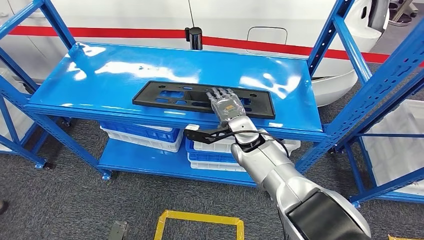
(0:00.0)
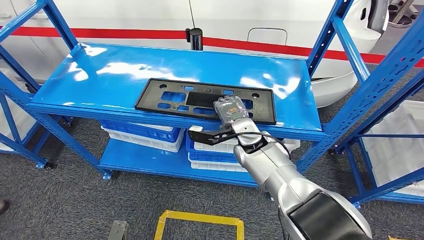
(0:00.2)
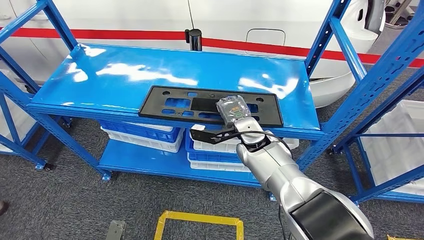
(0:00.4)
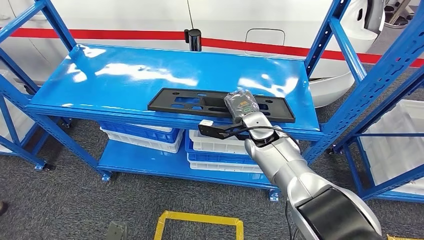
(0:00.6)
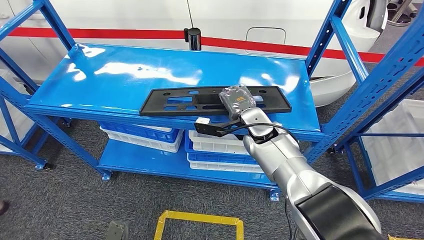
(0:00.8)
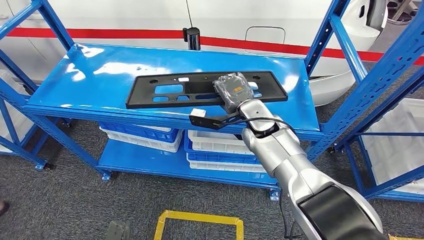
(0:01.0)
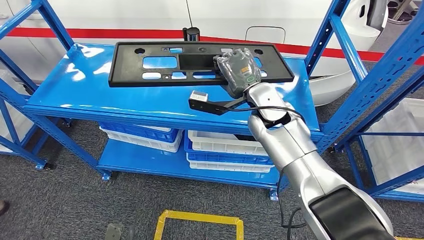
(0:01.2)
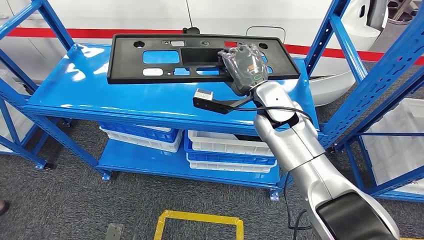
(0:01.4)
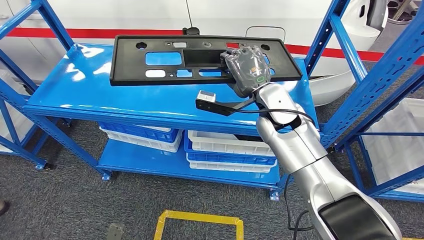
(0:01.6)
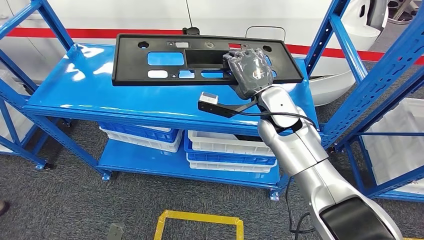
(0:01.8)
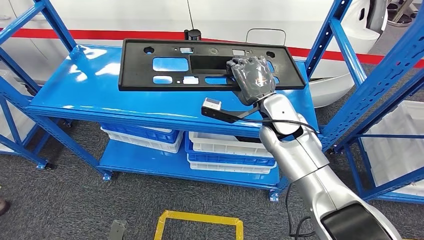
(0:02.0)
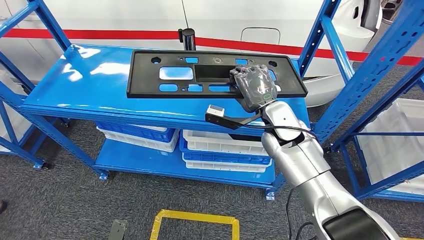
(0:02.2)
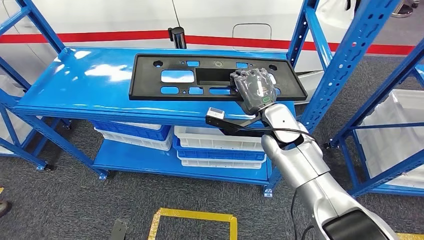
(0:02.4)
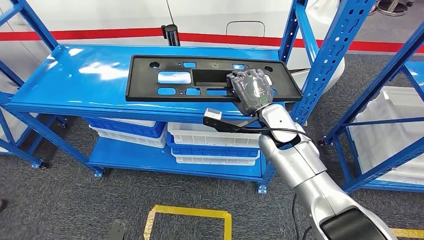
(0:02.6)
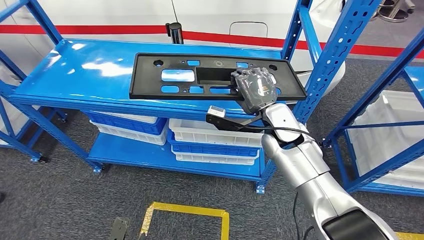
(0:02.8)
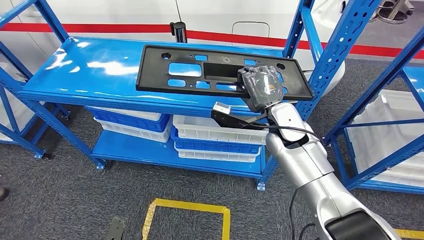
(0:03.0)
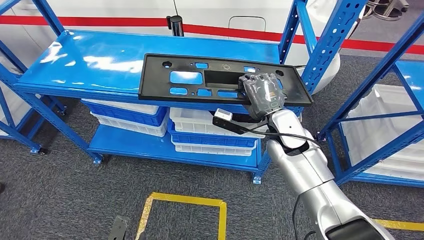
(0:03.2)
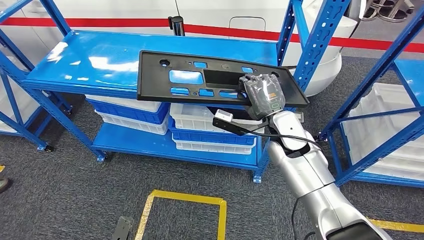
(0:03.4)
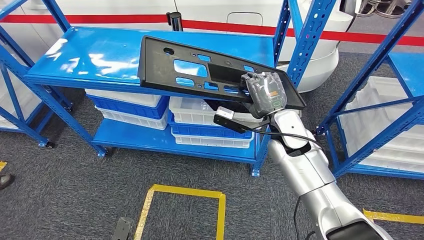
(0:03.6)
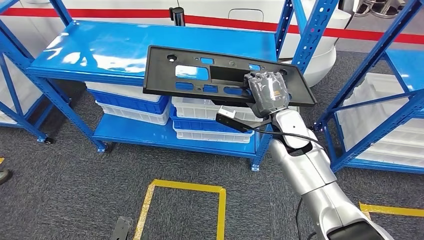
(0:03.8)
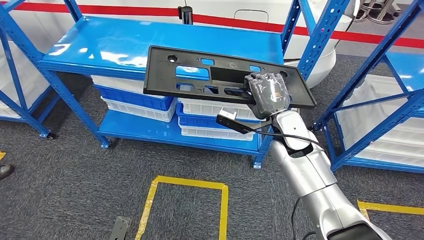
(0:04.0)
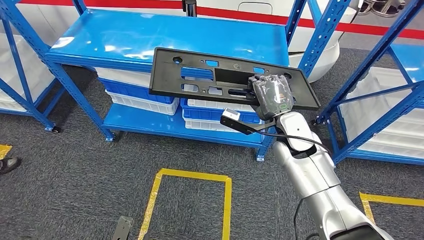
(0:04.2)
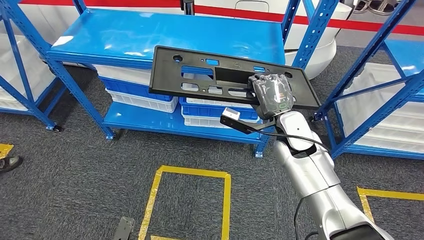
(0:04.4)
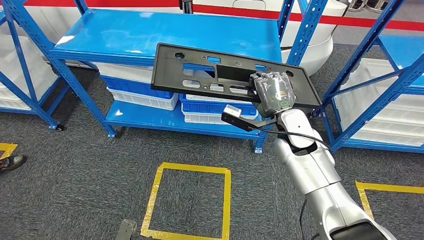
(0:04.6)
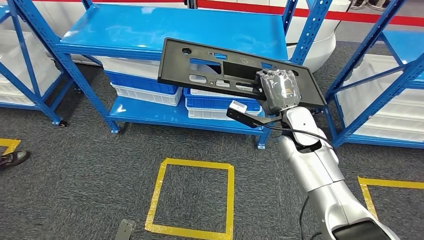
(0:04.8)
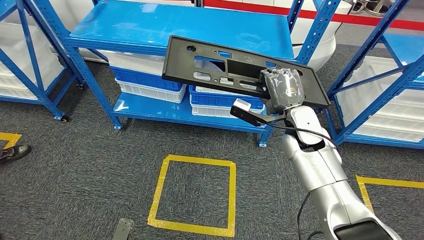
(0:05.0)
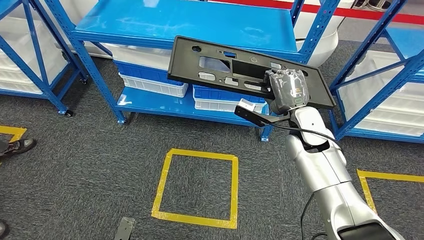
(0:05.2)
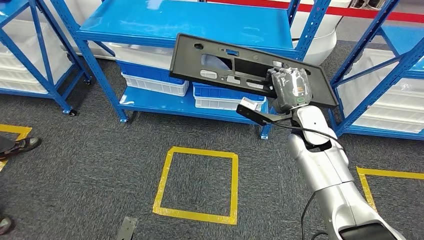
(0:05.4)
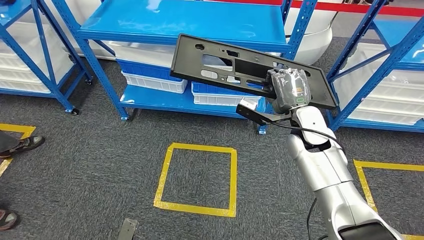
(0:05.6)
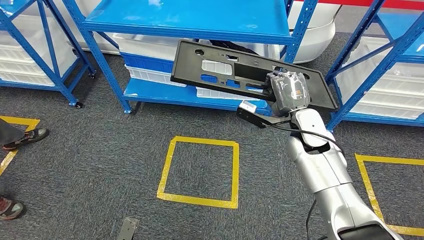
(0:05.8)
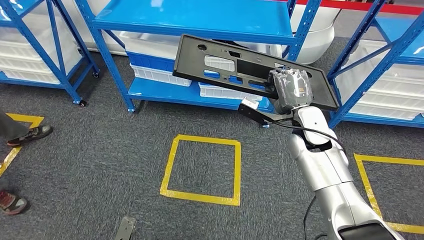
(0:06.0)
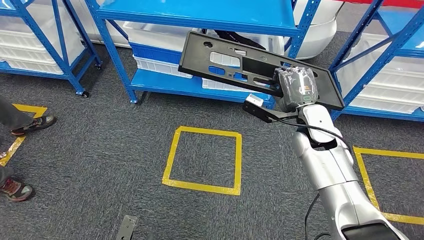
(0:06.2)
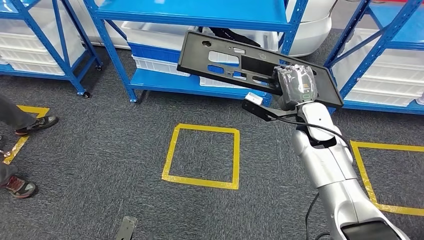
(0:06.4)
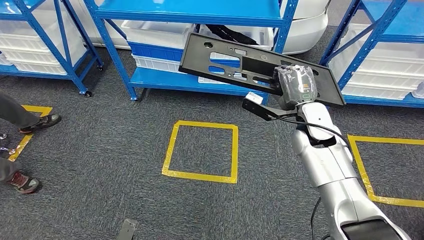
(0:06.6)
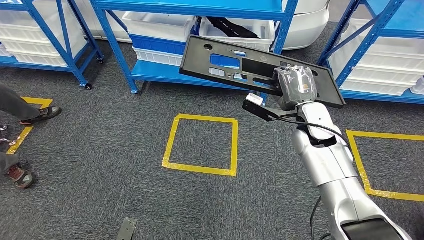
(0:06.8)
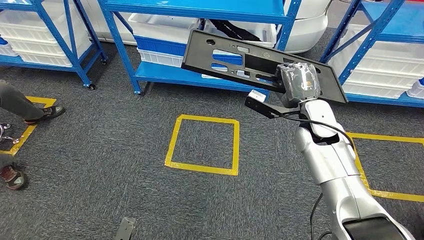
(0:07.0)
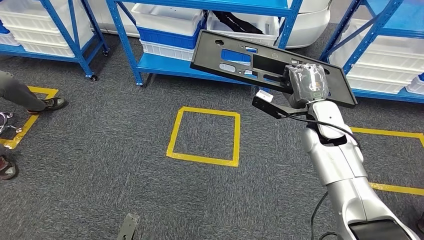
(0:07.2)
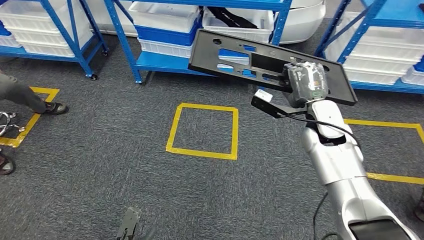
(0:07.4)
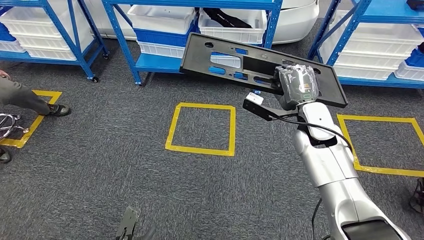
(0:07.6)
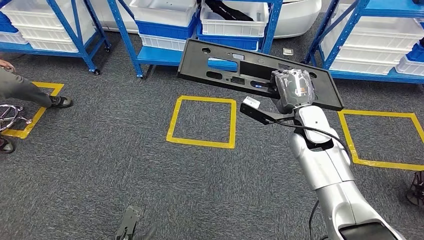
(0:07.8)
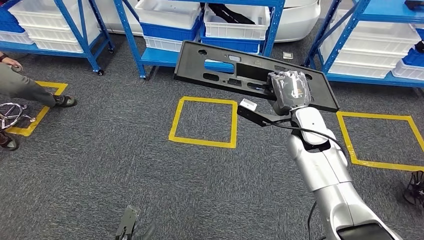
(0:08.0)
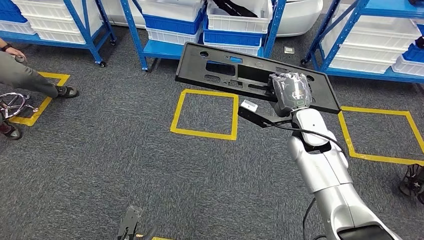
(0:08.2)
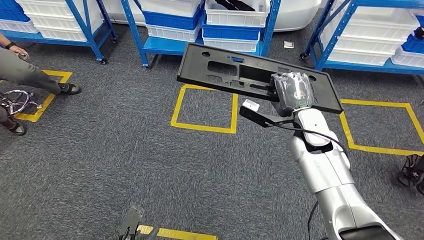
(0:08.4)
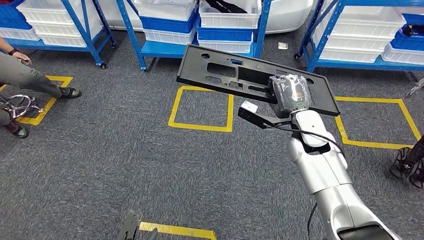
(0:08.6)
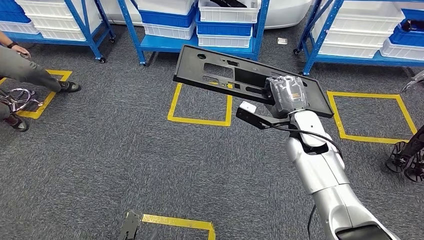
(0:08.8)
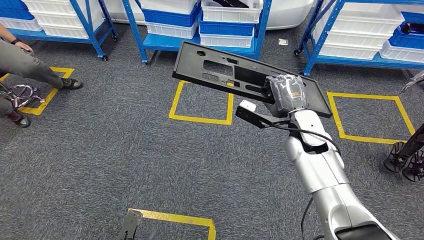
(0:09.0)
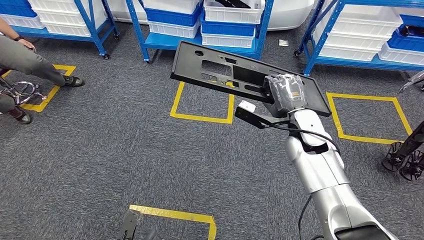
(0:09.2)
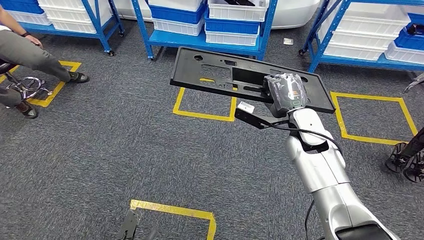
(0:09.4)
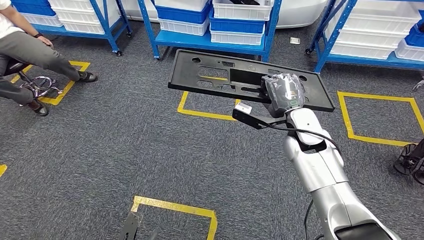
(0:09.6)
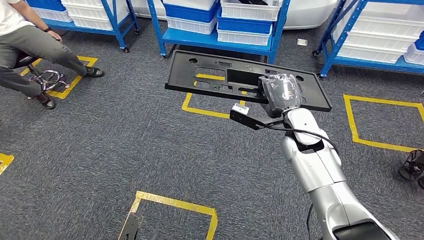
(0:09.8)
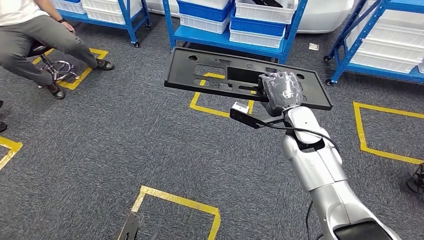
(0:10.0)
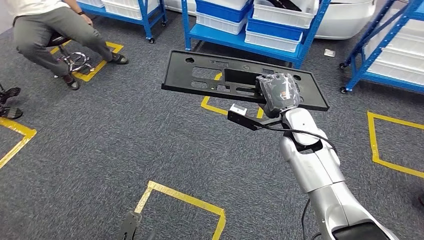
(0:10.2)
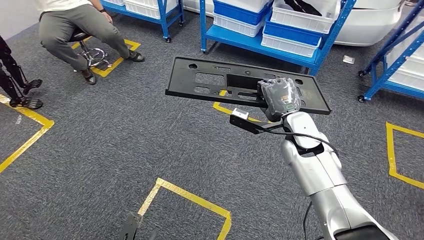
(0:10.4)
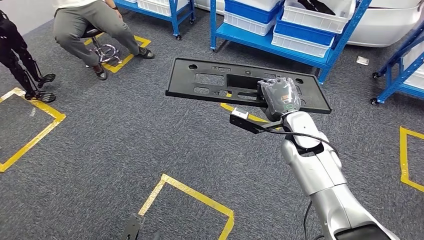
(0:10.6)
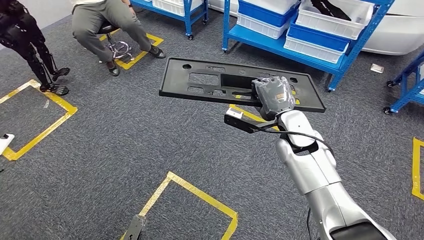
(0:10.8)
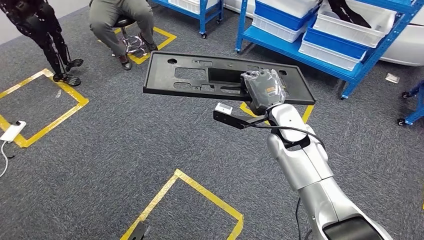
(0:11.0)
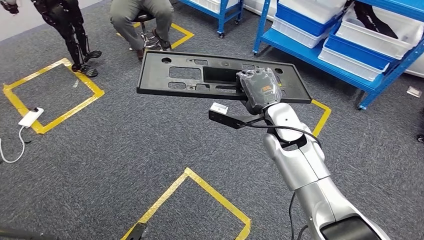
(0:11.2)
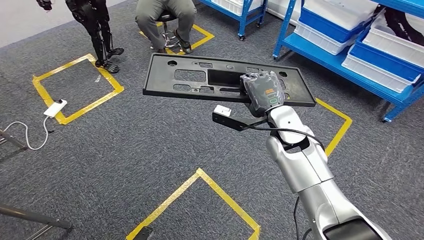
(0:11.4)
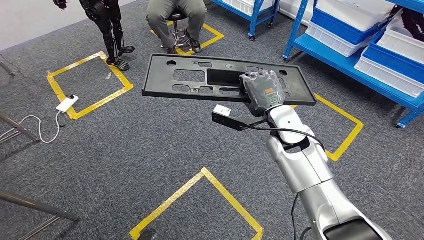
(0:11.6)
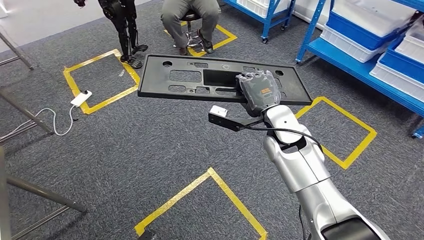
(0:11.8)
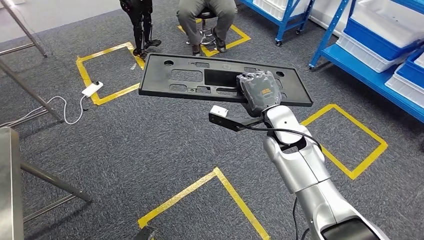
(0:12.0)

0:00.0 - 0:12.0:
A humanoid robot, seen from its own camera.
Step, 0:00.0 - 0:04.4: Pick up the large material from the shelf.

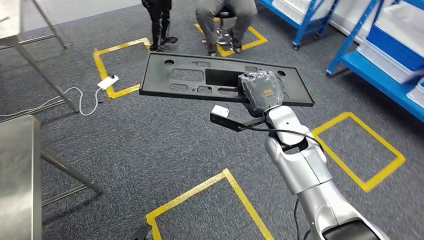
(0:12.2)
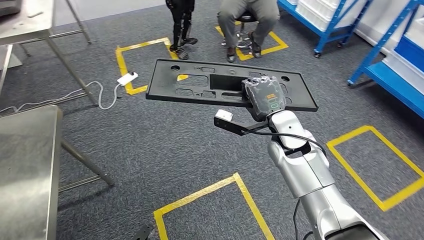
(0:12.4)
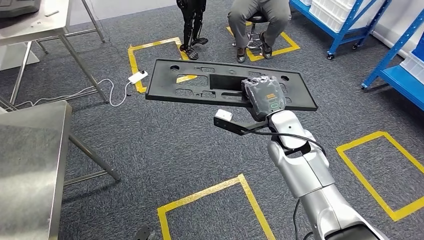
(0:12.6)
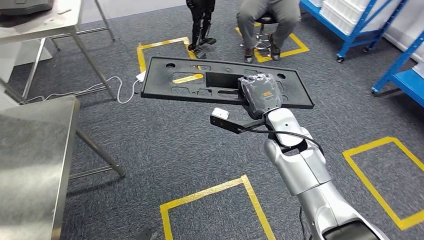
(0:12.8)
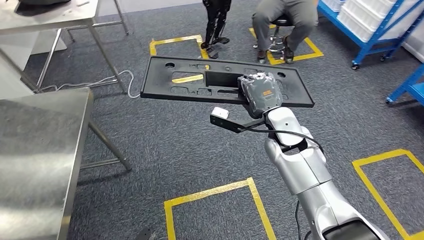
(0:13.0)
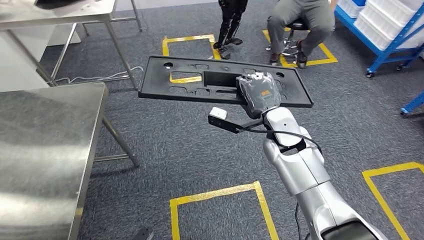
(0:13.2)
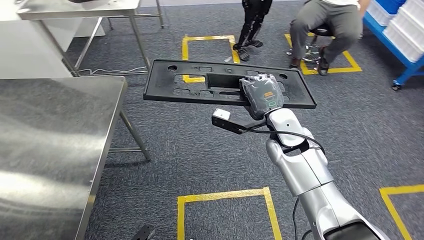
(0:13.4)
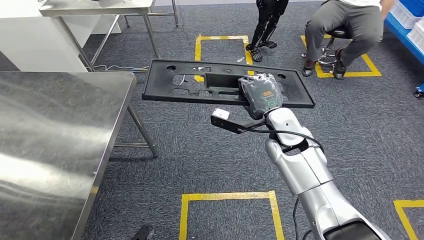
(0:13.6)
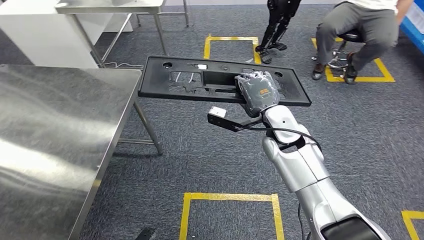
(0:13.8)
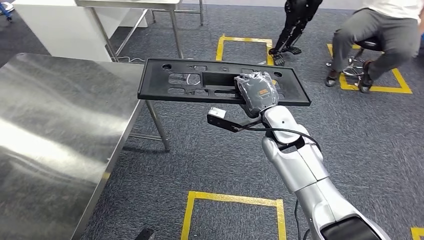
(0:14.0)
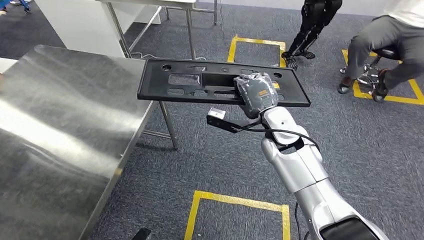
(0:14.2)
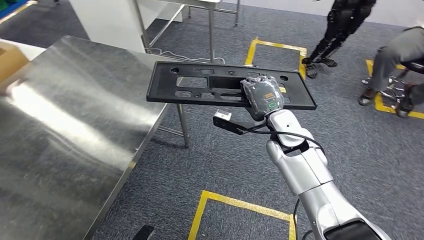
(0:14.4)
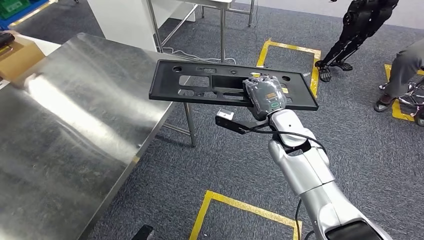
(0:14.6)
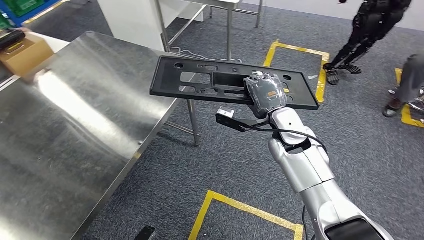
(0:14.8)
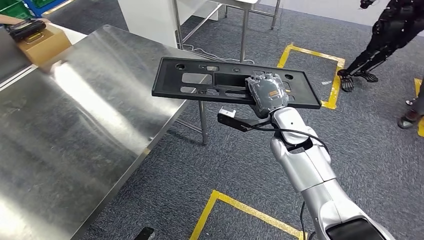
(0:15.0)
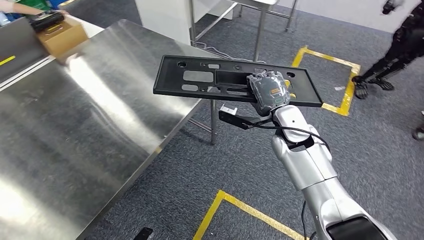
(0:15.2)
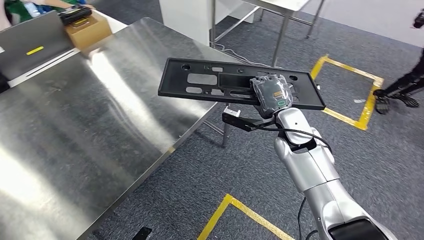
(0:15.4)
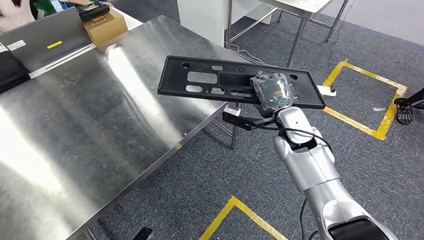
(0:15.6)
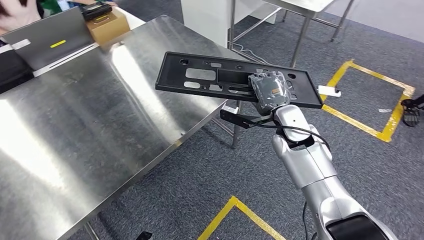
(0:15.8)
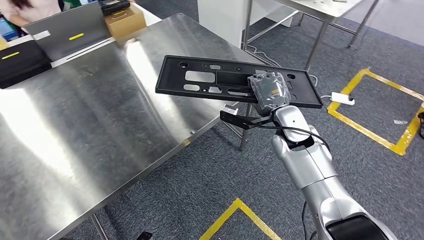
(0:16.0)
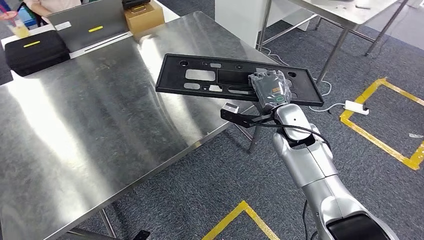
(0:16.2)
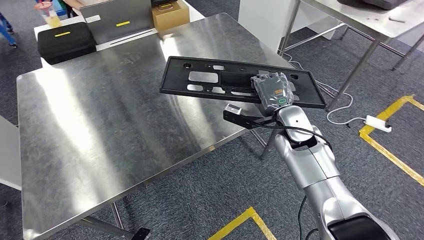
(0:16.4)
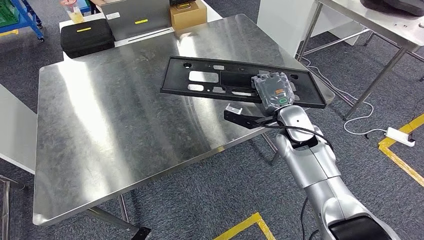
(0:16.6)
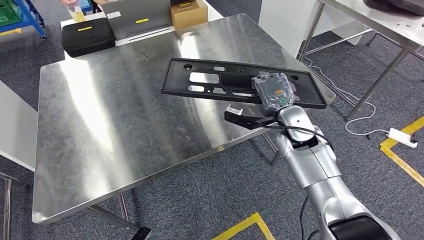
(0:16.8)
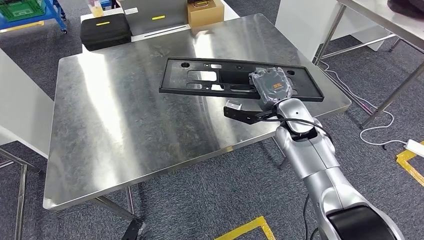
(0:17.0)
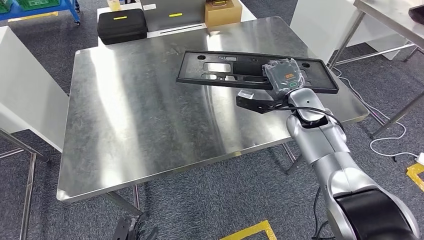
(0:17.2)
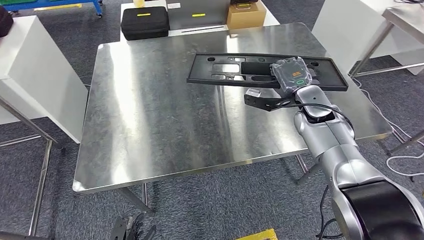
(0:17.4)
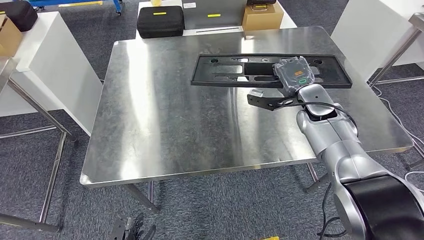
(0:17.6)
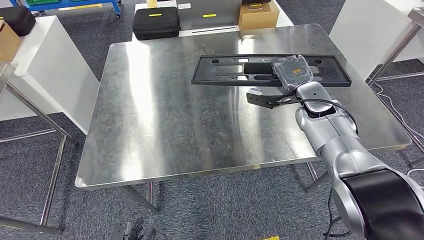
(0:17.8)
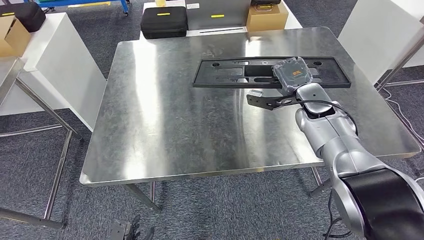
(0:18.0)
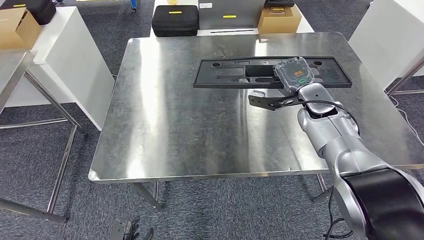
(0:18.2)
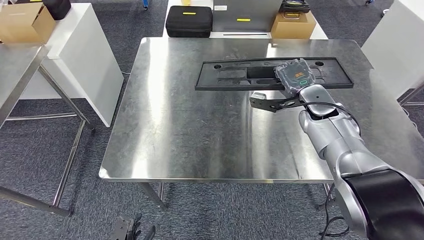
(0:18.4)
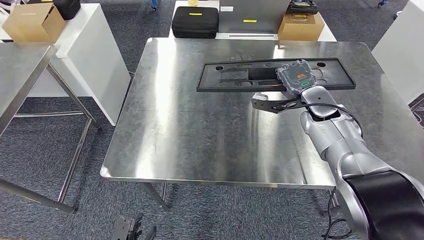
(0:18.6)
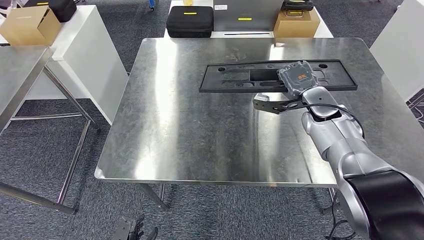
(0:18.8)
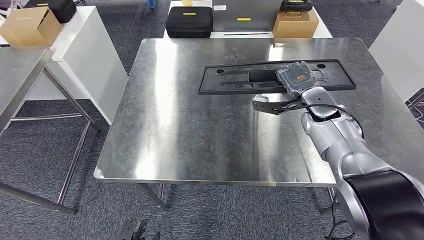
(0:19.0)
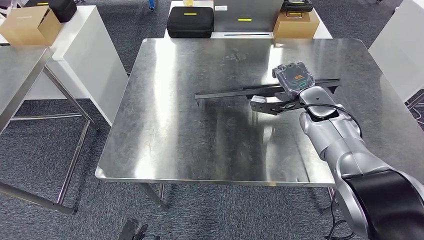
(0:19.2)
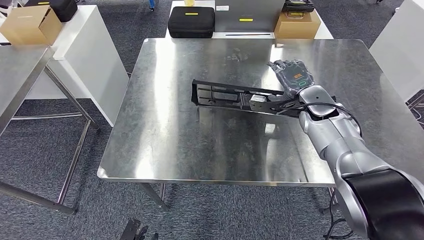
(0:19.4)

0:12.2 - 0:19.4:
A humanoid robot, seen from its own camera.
Step, 0:12.2 - 0:17.8: Move the large material to the workbench.
